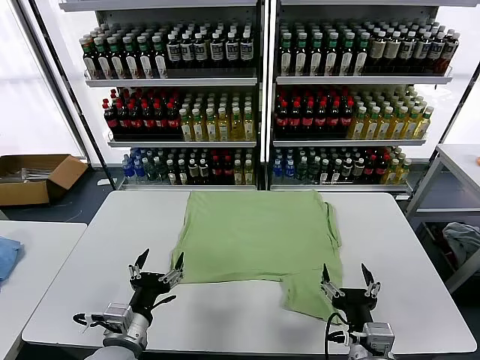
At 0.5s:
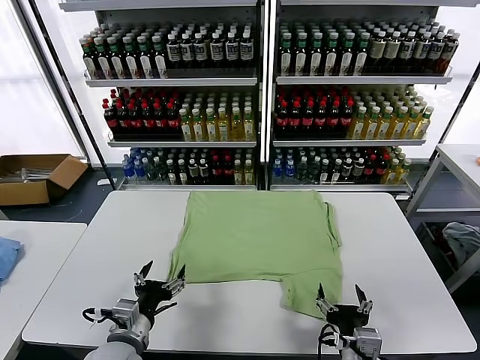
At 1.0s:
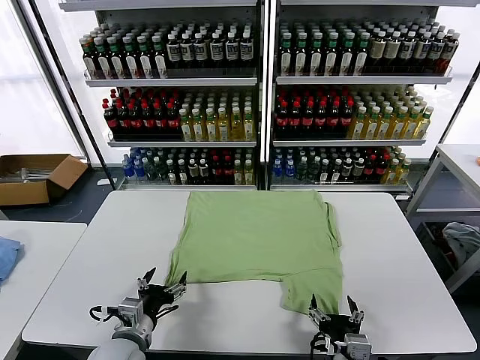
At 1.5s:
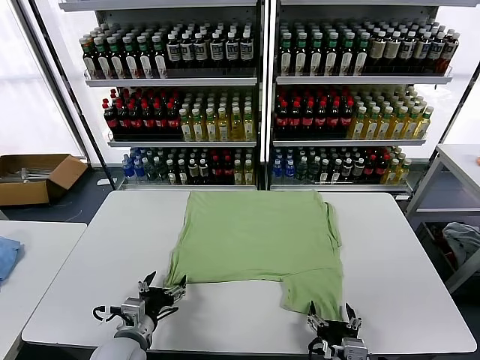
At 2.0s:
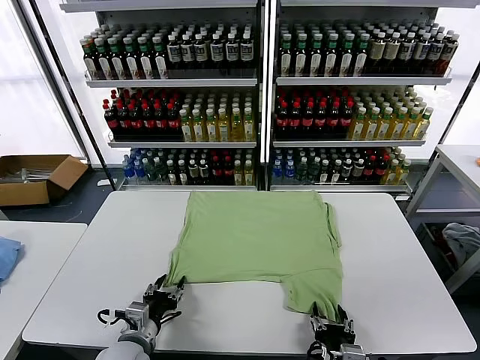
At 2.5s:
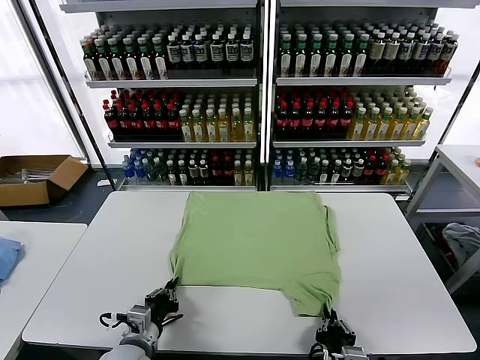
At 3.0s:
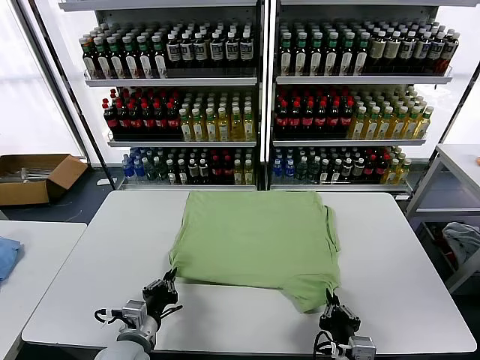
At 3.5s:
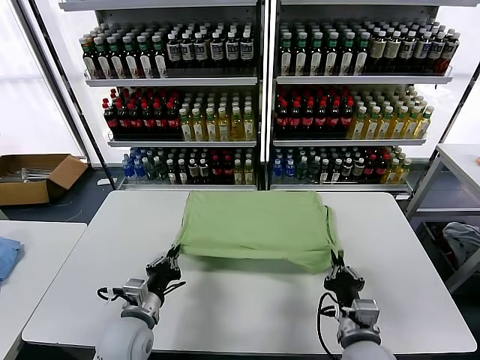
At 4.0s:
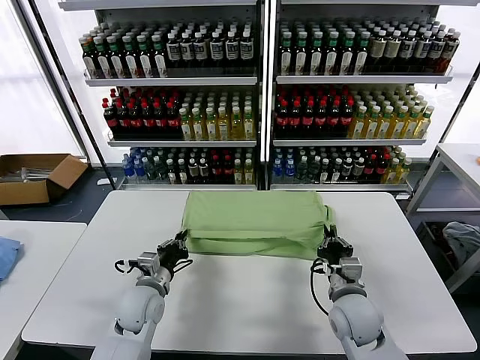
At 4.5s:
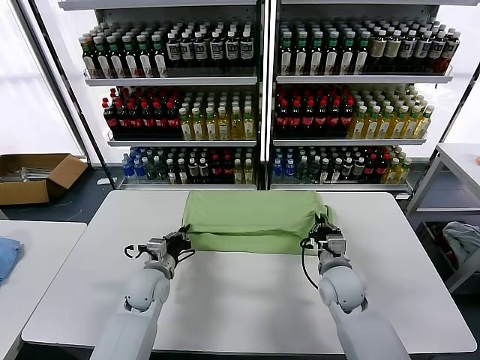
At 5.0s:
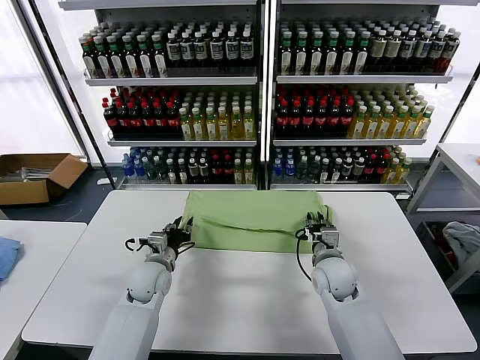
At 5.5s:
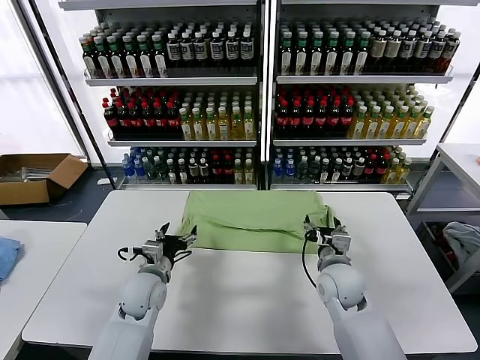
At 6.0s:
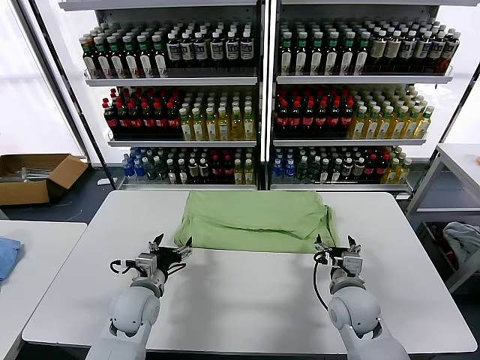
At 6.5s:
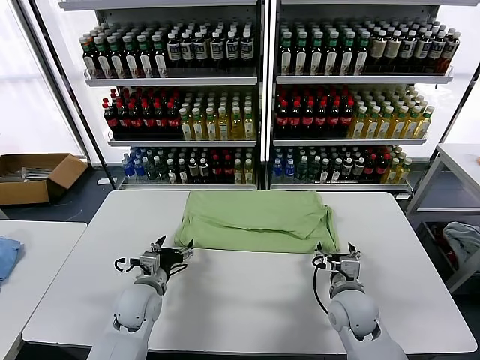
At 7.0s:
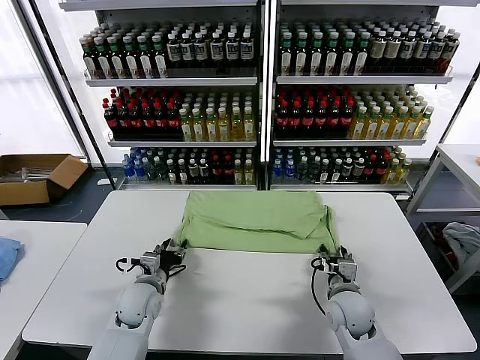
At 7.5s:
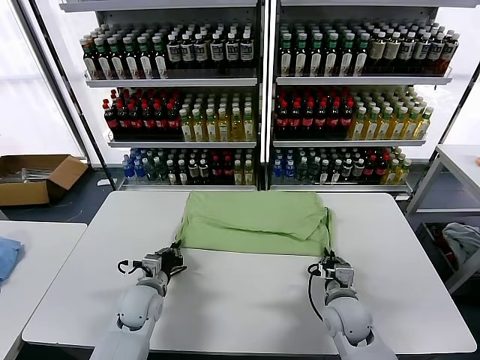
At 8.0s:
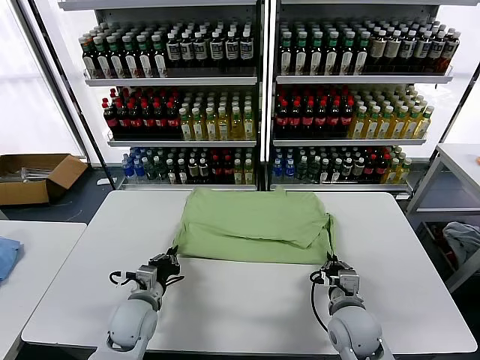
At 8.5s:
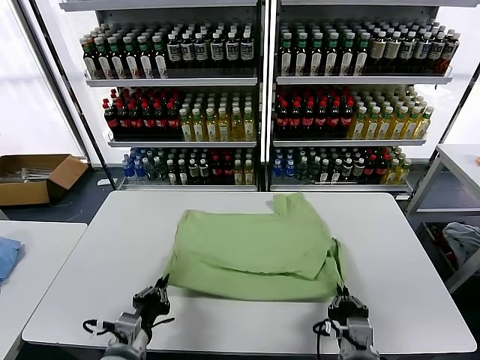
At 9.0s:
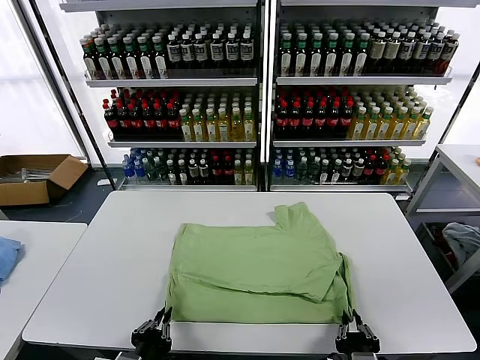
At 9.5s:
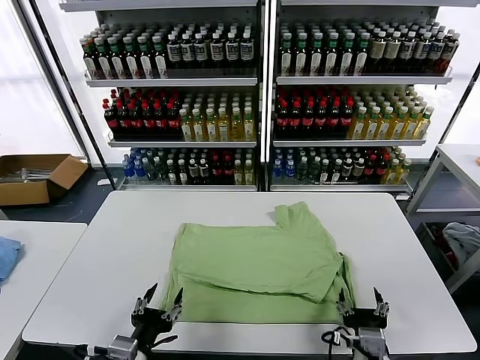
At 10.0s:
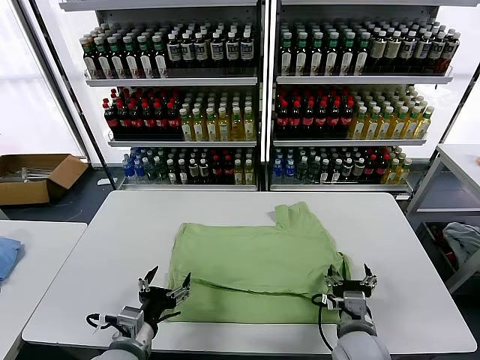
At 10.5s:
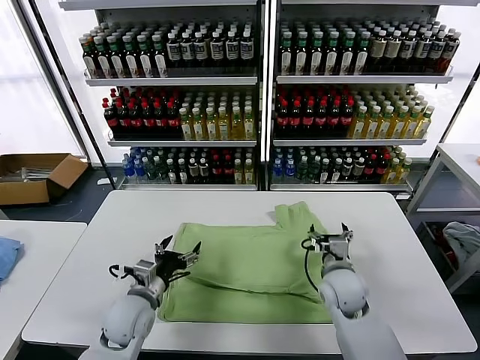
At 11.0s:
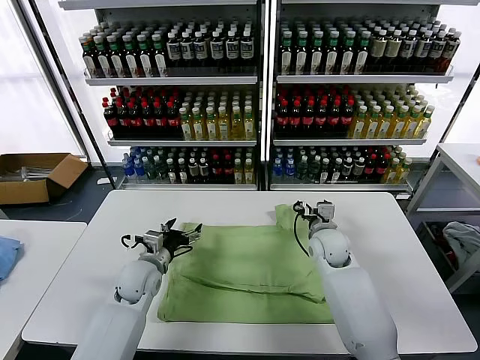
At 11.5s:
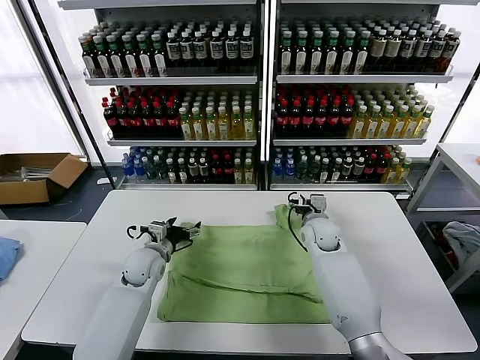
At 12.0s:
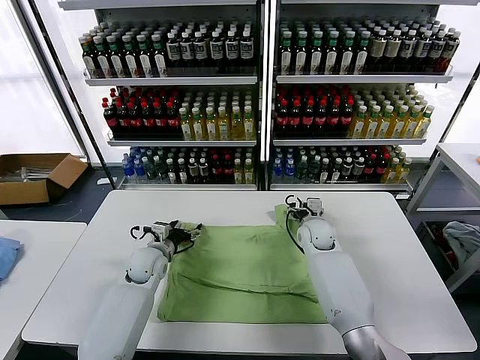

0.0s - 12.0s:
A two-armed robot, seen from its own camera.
Task of the whole recording: fold and organize the clothes.
Step, 0.0s - 2.5s: use both grippers simultaneously to clamp the lower edge of the clothing fabric.
Step, 3.0s - 5.0s: use both grippers to drag the lower edge of the fabric forward and fold it over the upper edge.
Step, 5.5s - 9.0s: Drag the clothes downward with both gripper.
2.0s - 4.0s: The left gripper is displaced forward by some 10 cm, and closes its fingers. Meanwhile the right gripper shifts about 20 cm forward, and closes up.
4.0s - 6.0s: The right gripper goes forward and returns, about 10 cm each way, and opens up; the left gripper opens its fingers.
6.0s - 8.0s: The right gripper moves about 5 cm, and closes its fingers. Meanwhile the left gripper closes its fingers.
8.0s - 10.0s: The left gripper goes some 10 cm backward, and opens its fingers. The right gripper moves about 15 cm backward and comes back, and opens its fingers.
10.0s - 12.0s: Both grippers travel together forward, approximately 25 cm.

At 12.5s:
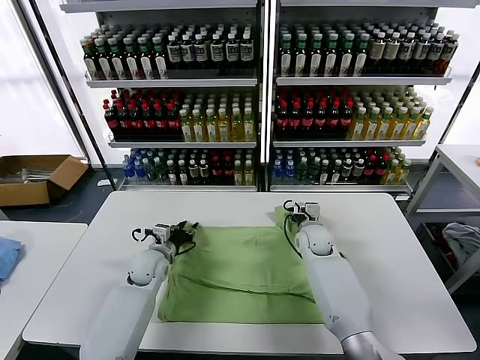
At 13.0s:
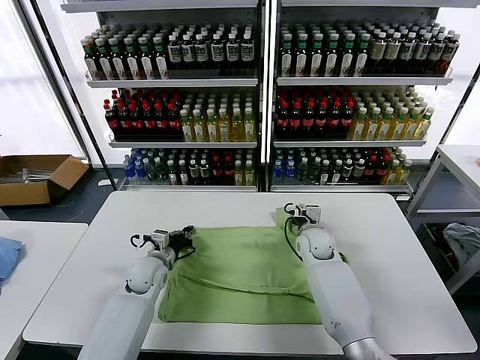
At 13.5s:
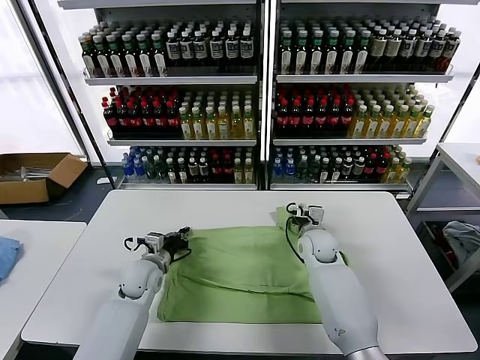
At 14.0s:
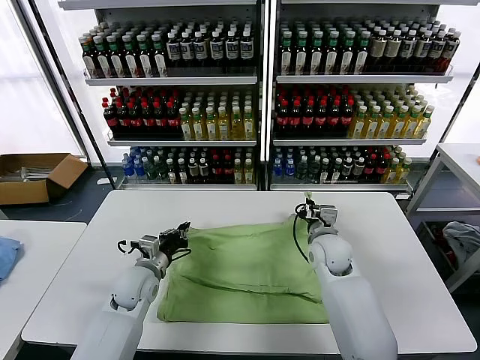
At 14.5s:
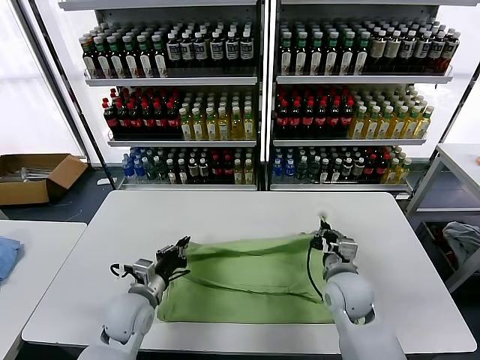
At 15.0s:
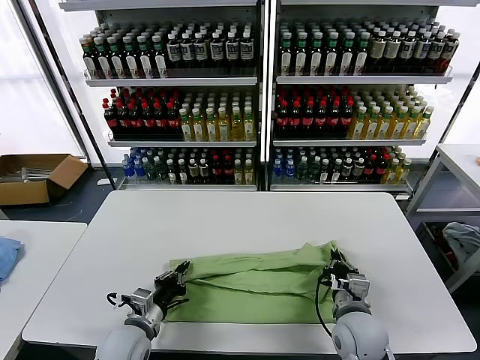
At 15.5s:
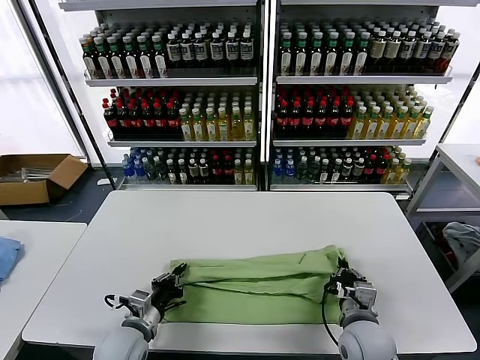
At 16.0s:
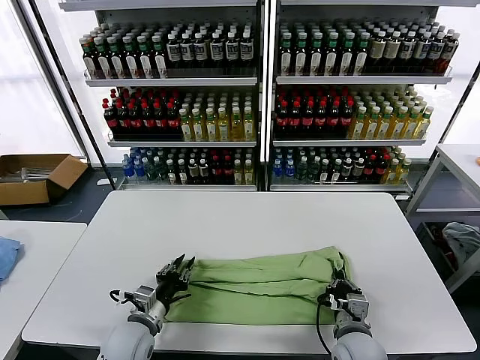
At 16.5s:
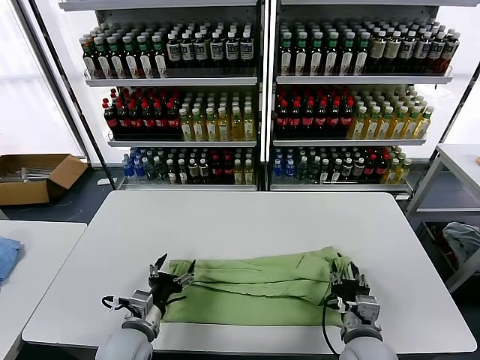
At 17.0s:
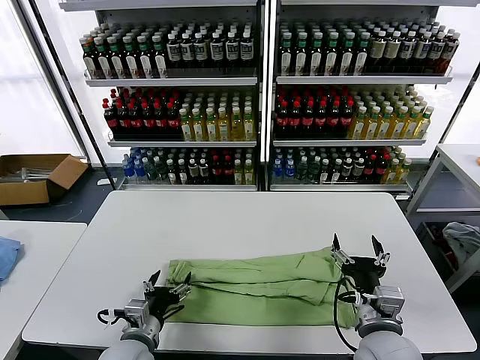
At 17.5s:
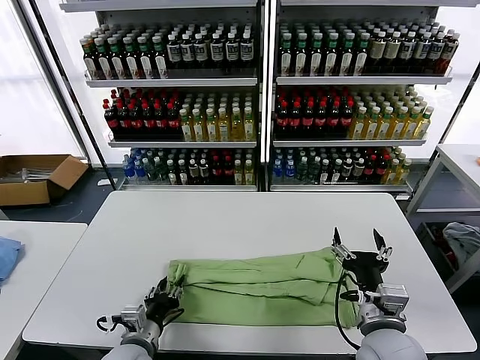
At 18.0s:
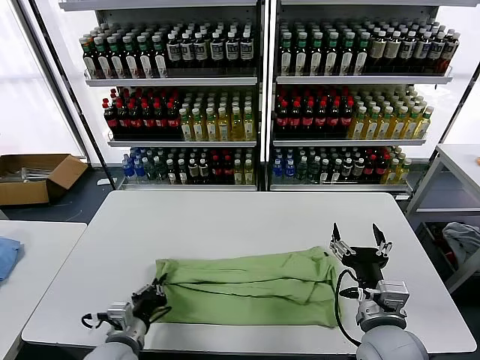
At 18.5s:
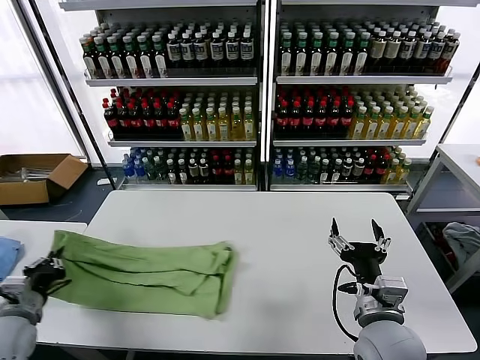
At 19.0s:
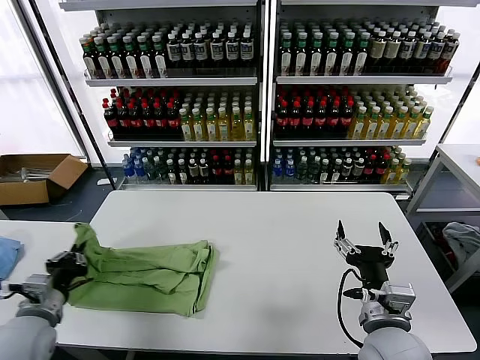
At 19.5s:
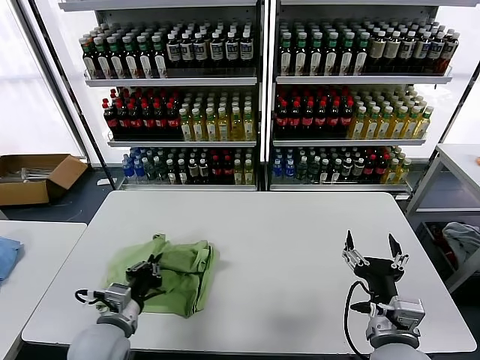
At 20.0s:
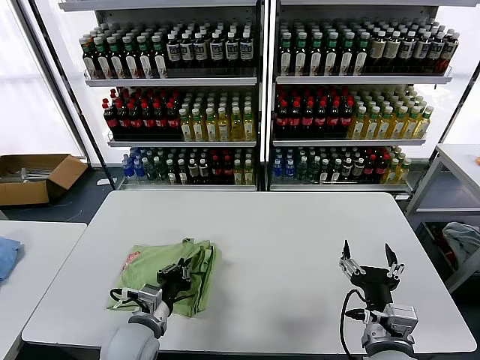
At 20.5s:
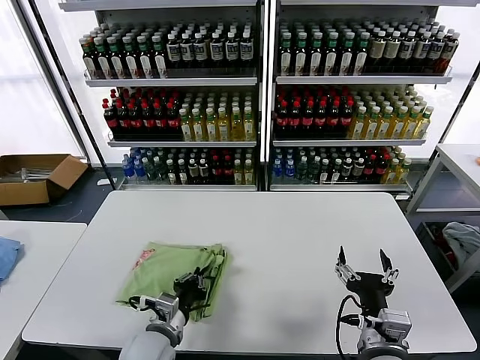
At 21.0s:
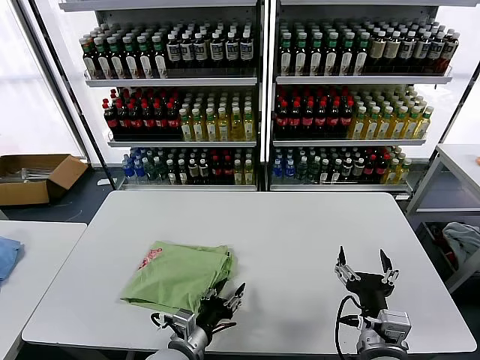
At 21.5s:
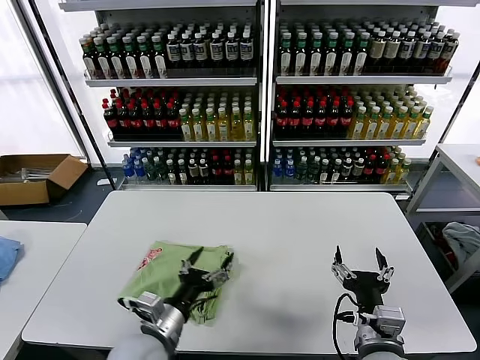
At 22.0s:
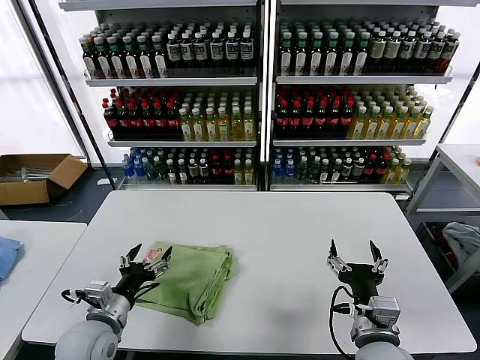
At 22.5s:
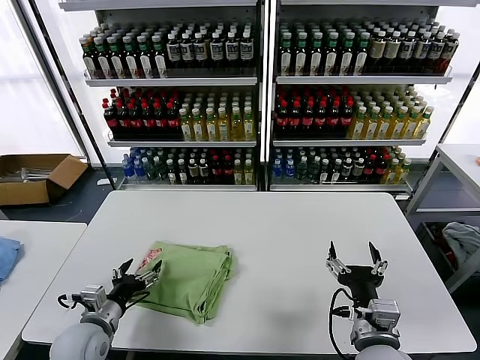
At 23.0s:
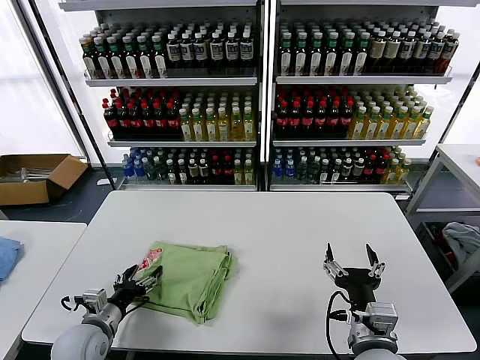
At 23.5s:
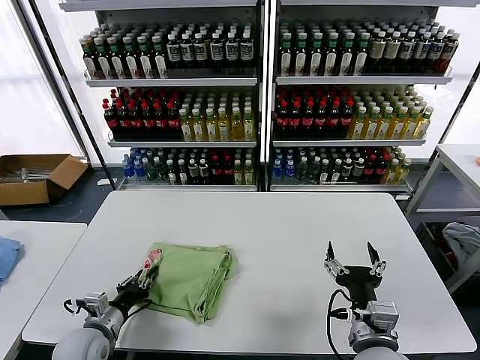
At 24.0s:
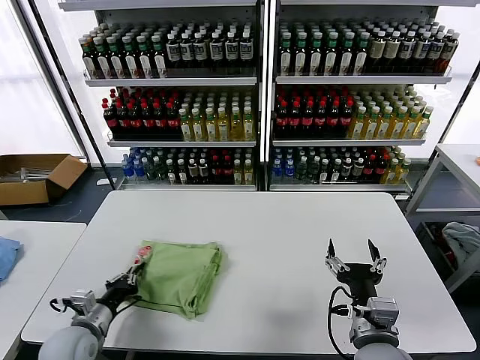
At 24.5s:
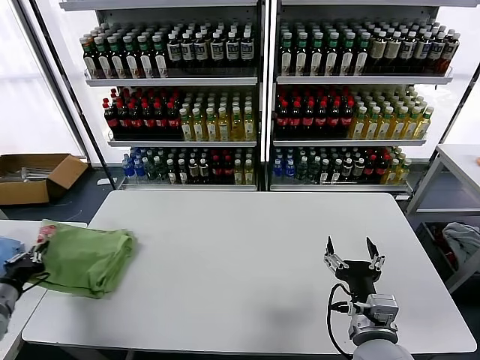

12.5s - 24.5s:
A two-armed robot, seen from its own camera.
Task of the whole recording: fold and organize the clothes.
Step, 13.5s - 16.5s: use both grippers to drag the upper edge of the fabric backward and fold it over the lower edge.
Step, 17.0s - 17.5s: use the left gripper to clamp the left edge of the fabric.
Step, 18.0s - 21.0s: use the left gripper to drag the left edge of the fabric to the left and folds it over the right edge.
12.5s - 14.5s: Both grippers travel together backward, about 15 cm. The left gripper closes up; the right gripper closes up.
14.5s - 16.5s: The right gripper moves backward, approximately 10 cm, and opens up; the left gripper goes approximately 5 cm backward, and opens its fingers.
16.5s - 18.5s: The right gripper travels upward by about 10 cm, and opens its fingers; the left gripper travels to the left by approximately 20 cm, and closes up.
18.5s - 20.5s: The left gripper is displaced to the right by about 25 cm. The right gripper shifts by some 5 cm.
20.5s - 22.5s: The left gripper shifts approximately 15 cm to the left, and opens.
22.5s - 24.5s: The left gripper moves to the left, some 20 cm, and closes.

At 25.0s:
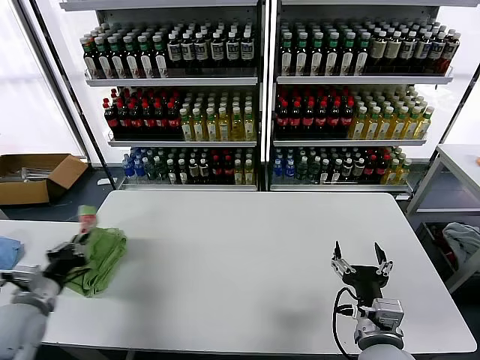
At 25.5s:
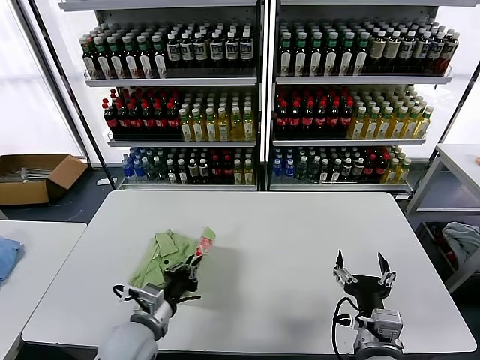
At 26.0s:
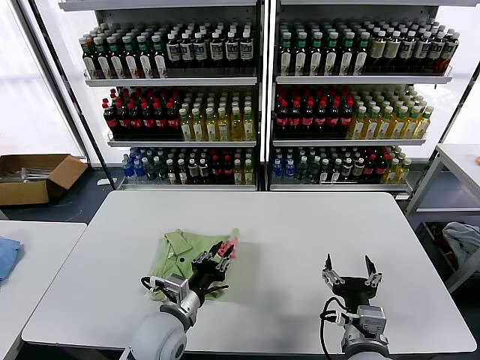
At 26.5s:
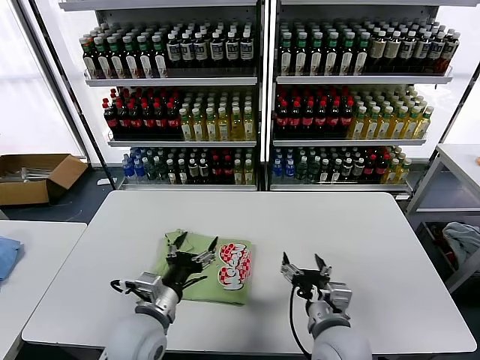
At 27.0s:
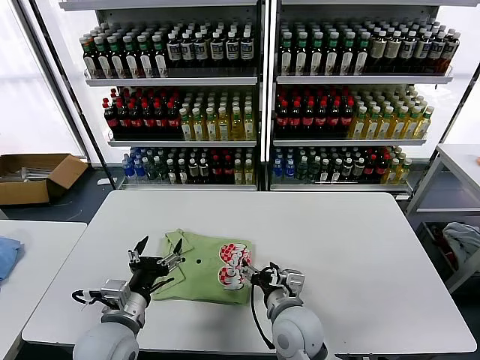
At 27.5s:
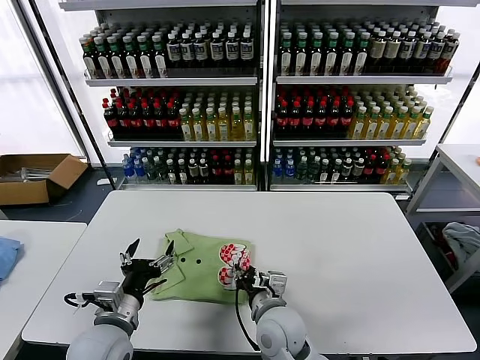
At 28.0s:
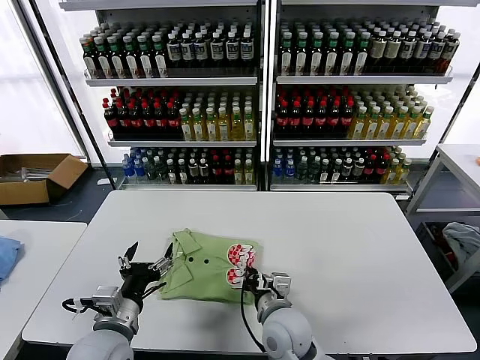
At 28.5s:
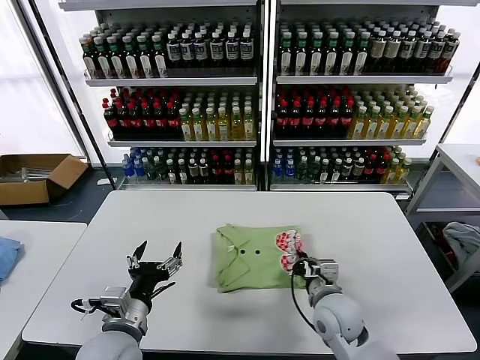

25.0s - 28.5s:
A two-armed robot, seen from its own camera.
Task of the whole recording: fold and organize the clothes.
25.0s - 27.0s: The left gripper shifts approximately 25 cm to the right, and opens up; the right gripper shifts about 15 cm to the left and forward.
27.0s - 28.5s: The right gripper goes some 5 cm to the right, and closes up.
